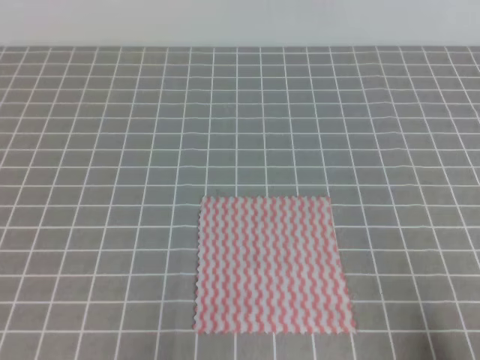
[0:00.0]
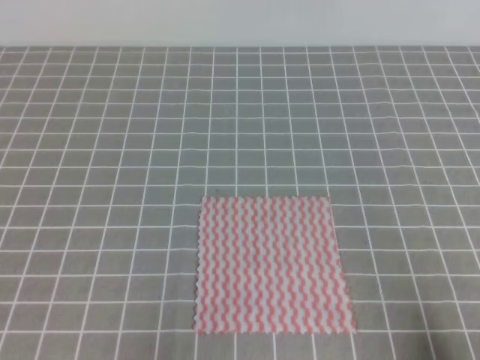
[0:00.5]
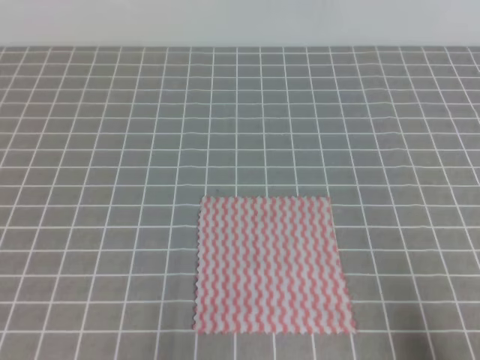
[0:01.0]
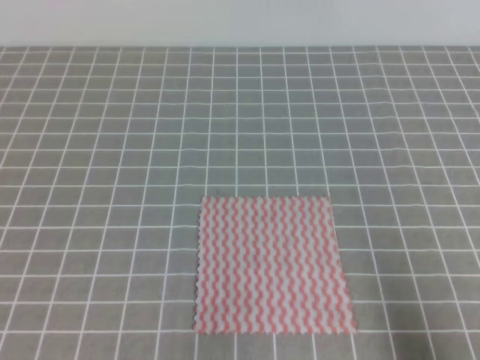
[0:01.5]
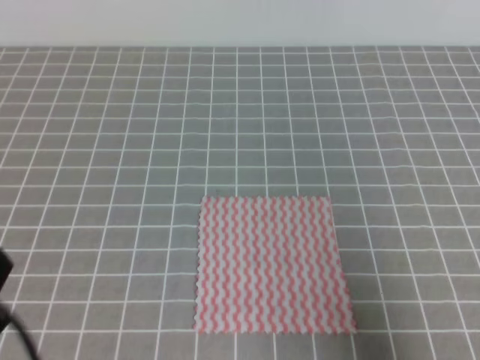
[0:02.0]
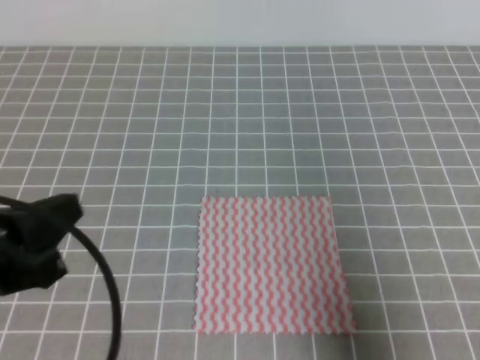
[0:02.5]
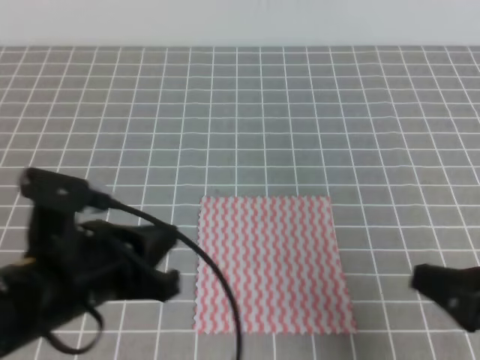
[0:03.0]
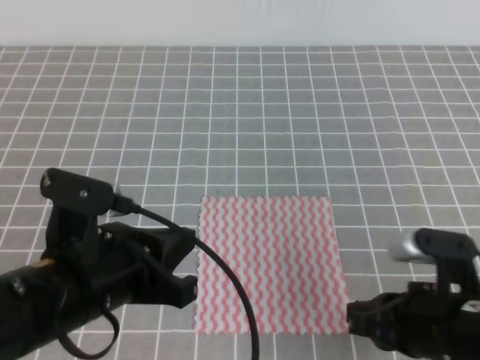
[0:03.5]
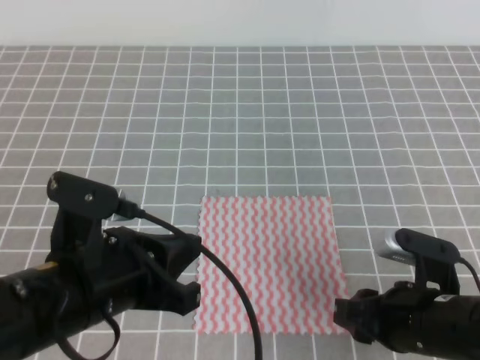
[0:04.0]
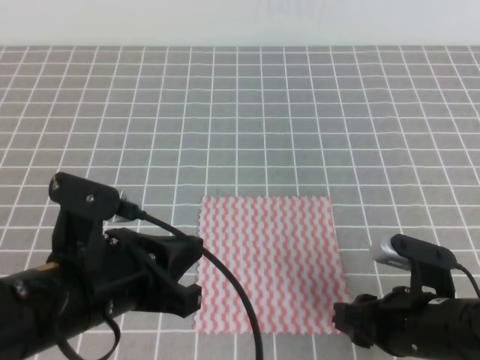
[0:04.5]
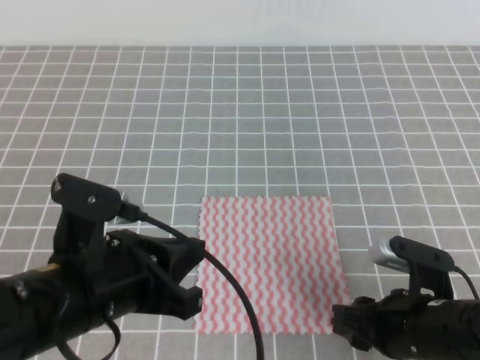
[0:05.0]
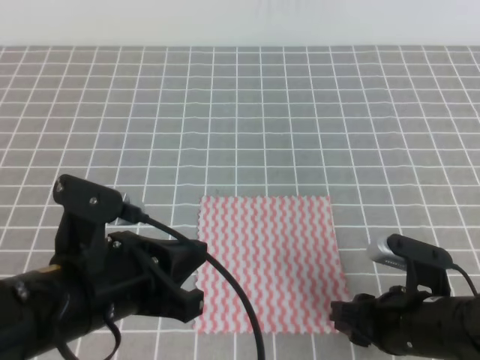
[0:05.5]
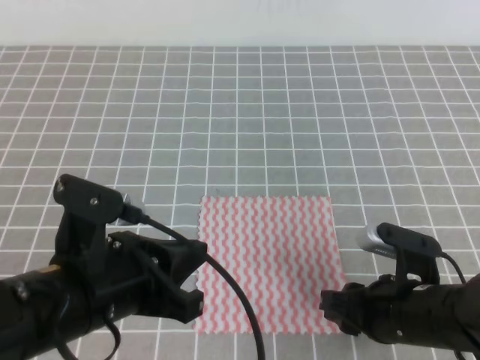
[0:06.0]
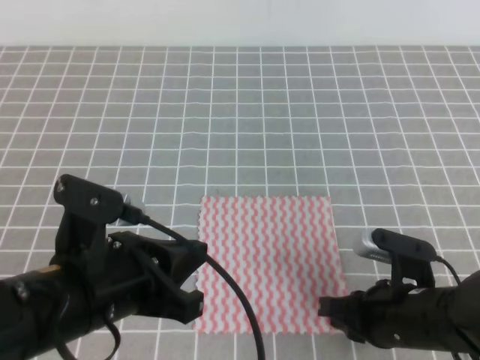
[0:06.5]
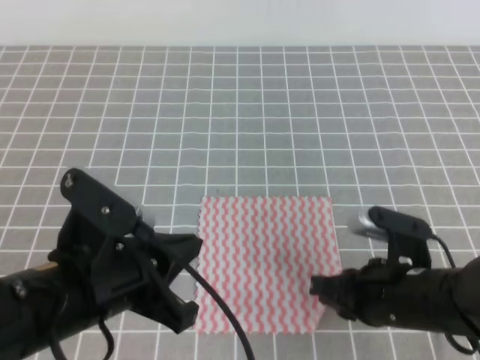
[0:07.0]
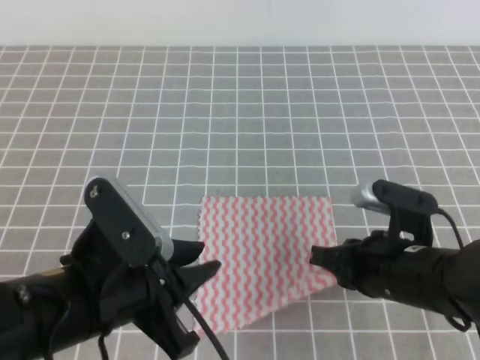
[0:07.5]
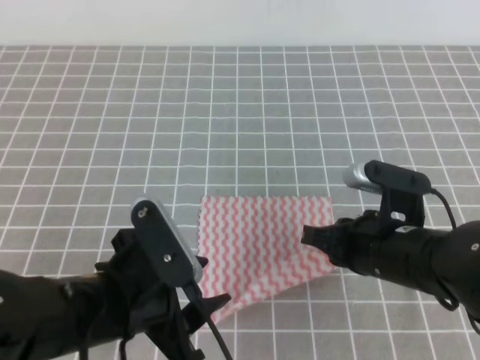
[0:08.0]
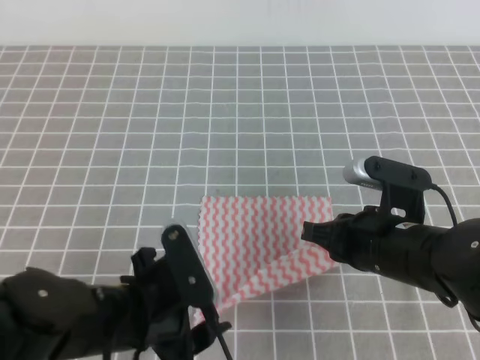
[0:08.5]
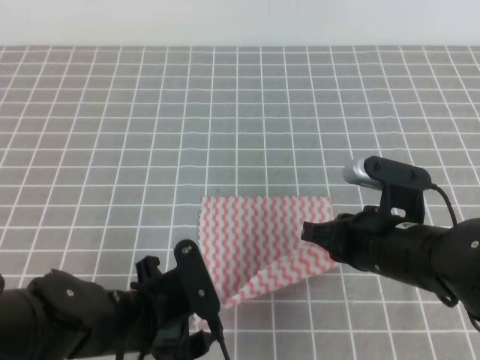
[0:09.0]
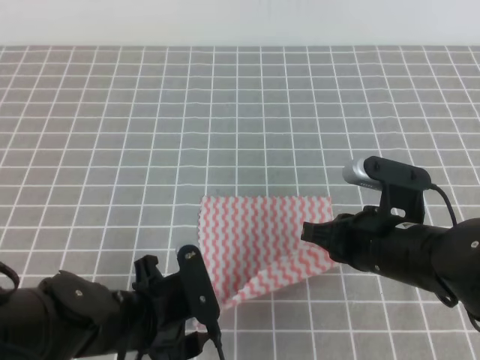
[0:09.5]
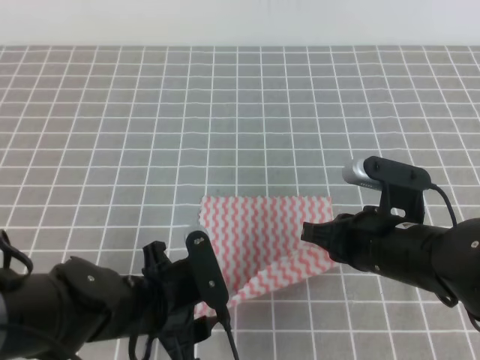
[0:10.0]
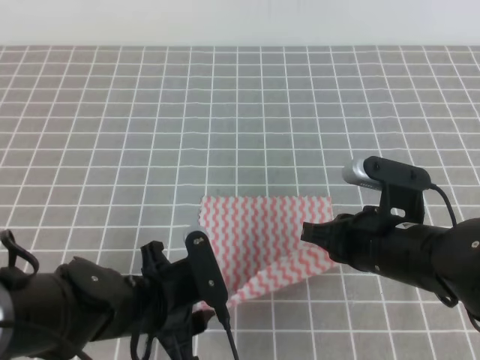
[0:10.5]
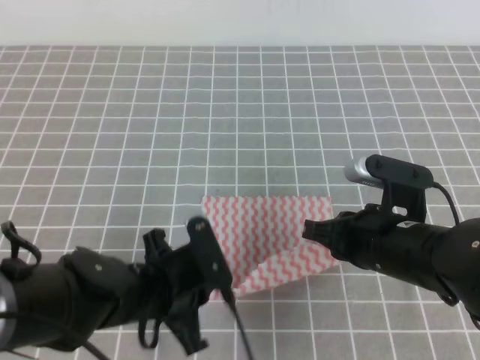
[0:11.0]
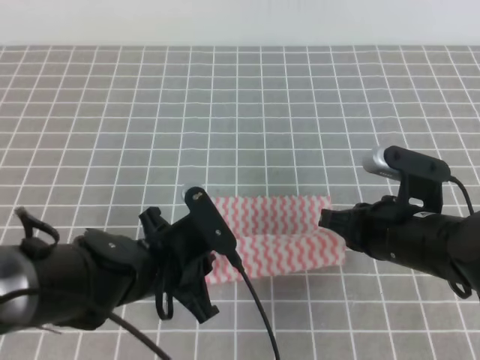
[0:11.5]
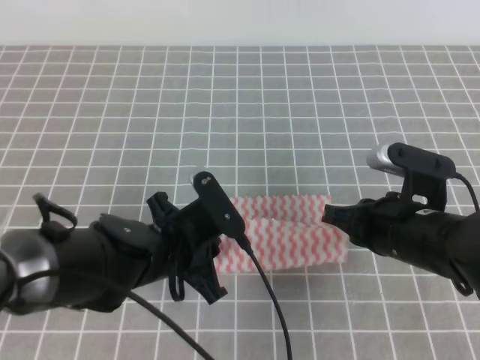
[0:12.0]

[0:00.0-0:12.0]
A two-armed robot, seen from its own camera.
0:00.0 to 0:02.0: The two grippers go about 5 cm upward.
0:02.0 to 0:04.0: The right gripper shifts about 20 cm to the left, forward and downward, and opens its fingers. Meanwhile the left gripper goes some 15 cm to the right and forward.
0:04.0 to 0:06.0: The grippers stay close to where they were, moving slightly.
0:06.0 to 0:08.0: The right gripper ends up some 5 cm from where it was, and closes up. Meanwhile the left gripper opens.
0:08.0 to 0:10.0: The left gripper heads downward, covering about 5 cm.
0:10.0 to 0:12.0: The left gripper moves forward, approximately 5 cm, and closes up.

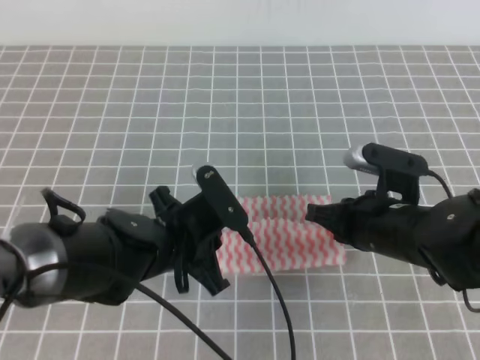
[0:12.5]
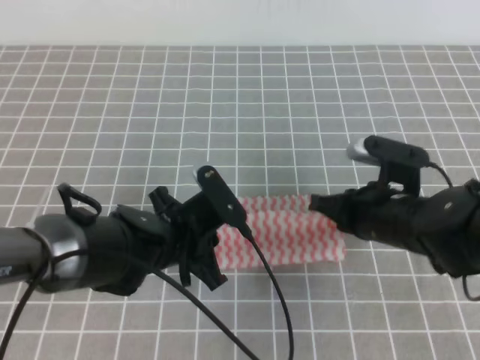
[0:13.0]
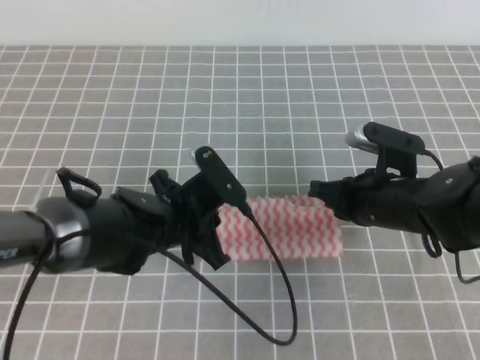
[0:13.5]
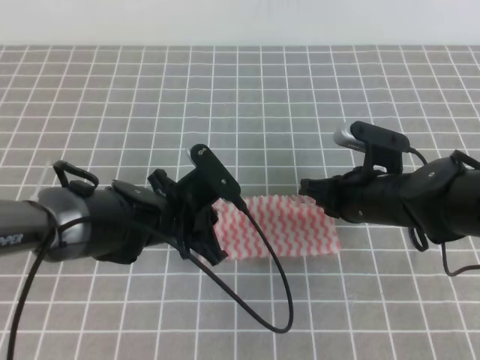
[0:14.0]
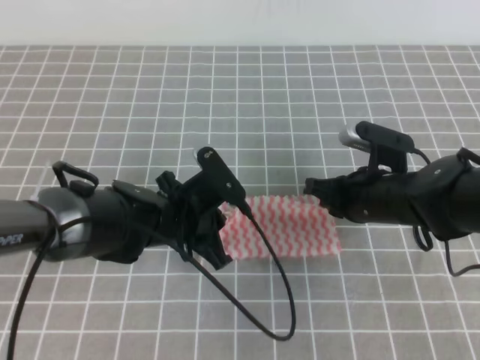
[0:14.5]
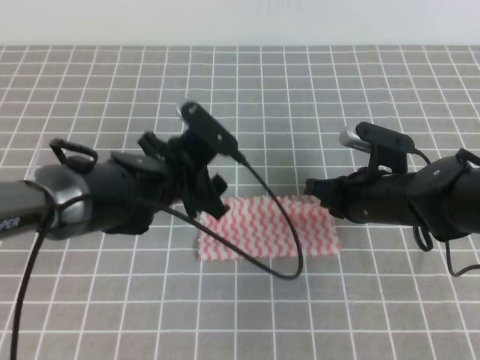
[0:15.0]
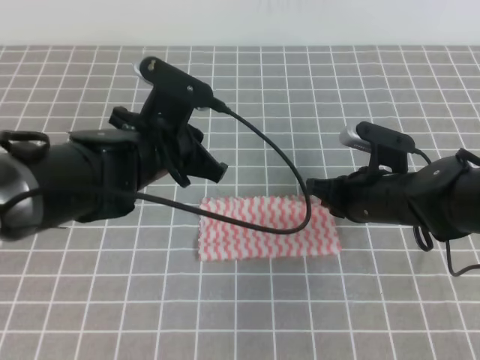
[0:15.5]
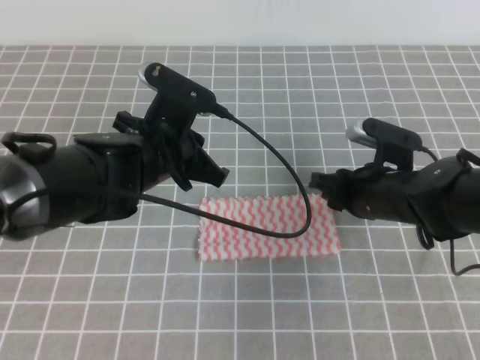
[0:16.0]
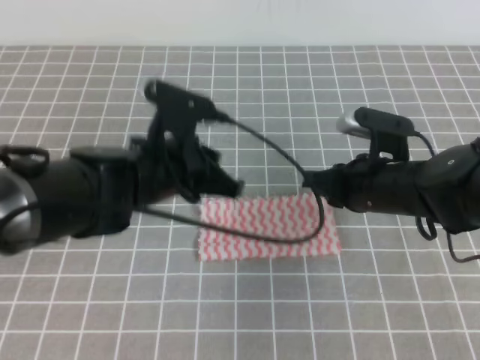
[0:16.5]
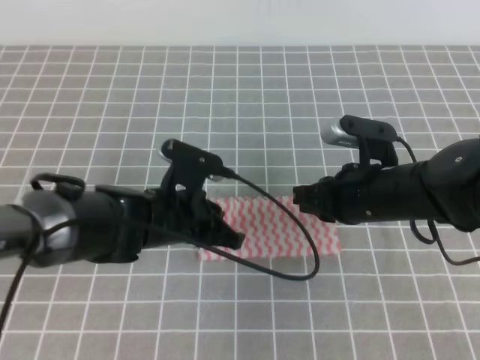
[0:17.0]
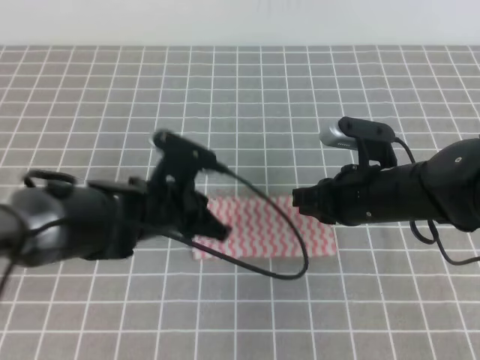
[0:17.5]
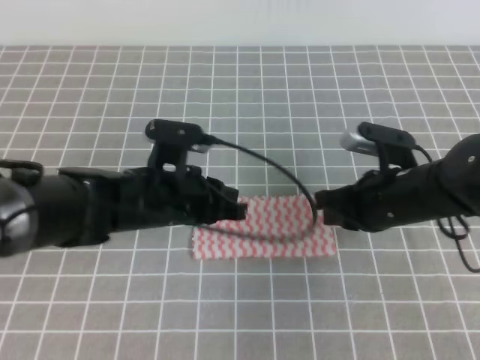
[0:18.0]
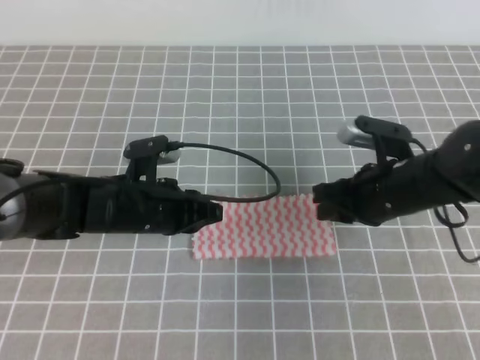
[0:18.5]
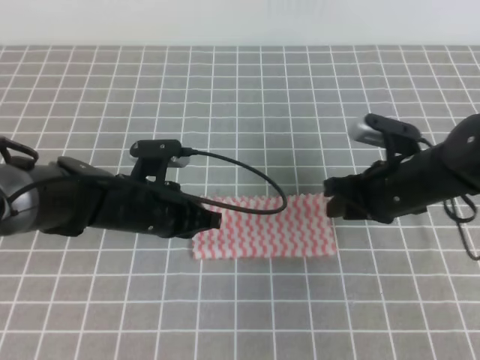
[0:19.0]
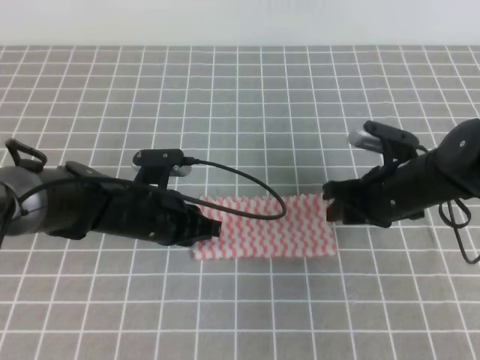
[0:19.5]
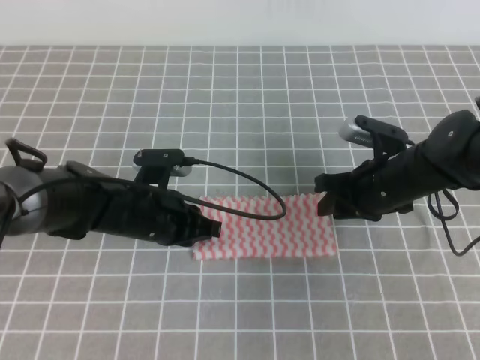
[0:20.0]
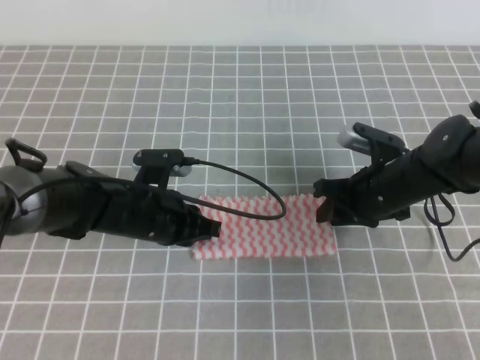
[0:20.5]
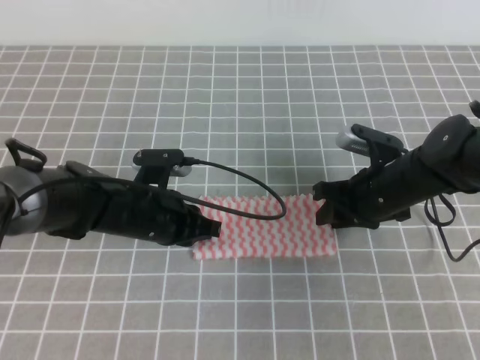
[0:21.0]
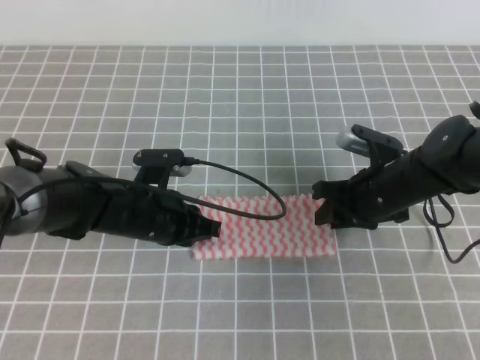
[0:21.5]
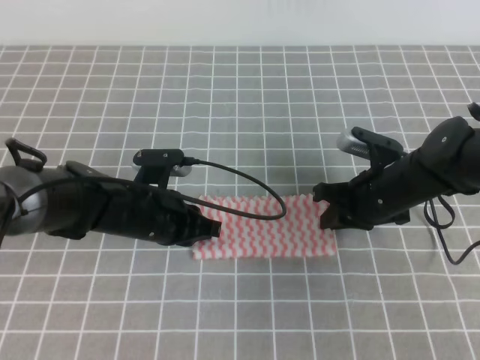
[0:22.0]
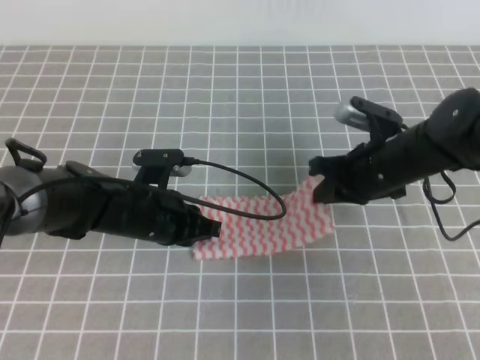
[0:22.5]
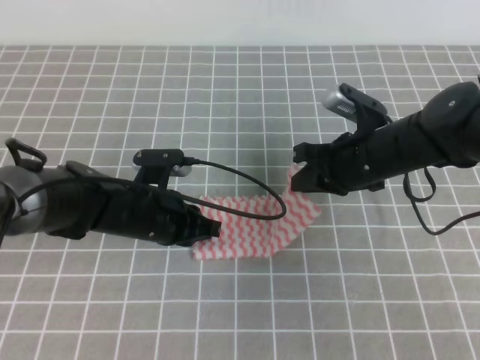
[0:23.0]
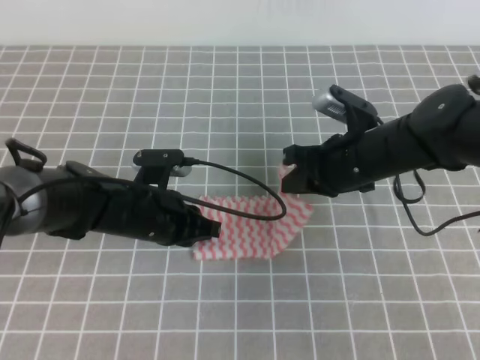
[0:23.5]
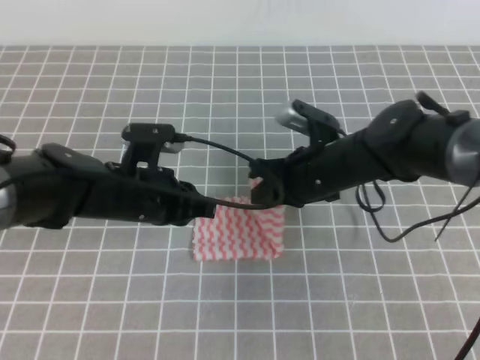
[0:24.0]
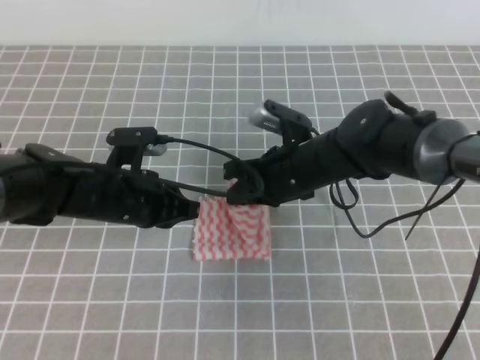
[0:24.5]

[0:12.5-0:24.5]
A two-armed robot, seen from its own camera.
0:12.5 to 0:14.5: The left gripper opens up. Meanwhile the right gripper travels forward by roughly 5 cm.
0:14.5 to 0:16.5: The left gripper is displaced upward by roughly 5 cm, and closes its fingers; the right gripper opens, then closes again.
0:16.5 to 0:18.5: The left gripper goes about 5 cm downward.
0:18.5 to 0:20.5: The right gripper shifts by roughly 5 cm, and opens its fingers.
0:20.5 to 0:22.5: The right gripper closes up.
0:22.5 to 0:24.5: The right gripper goes some 10 cm to the left.

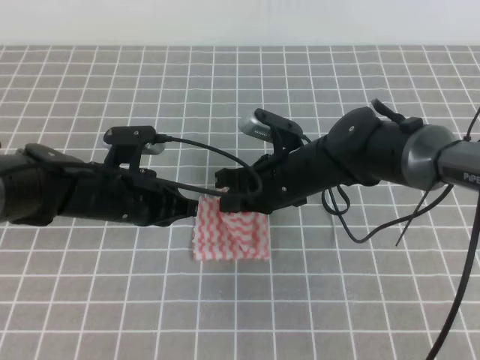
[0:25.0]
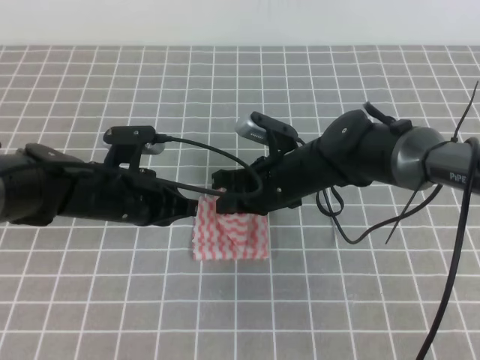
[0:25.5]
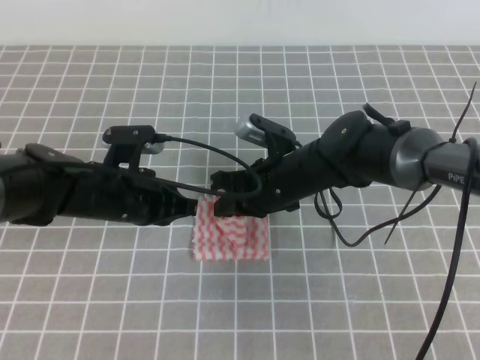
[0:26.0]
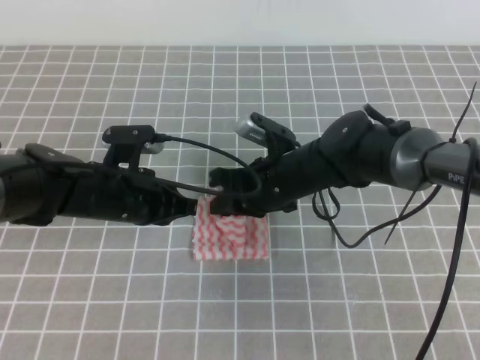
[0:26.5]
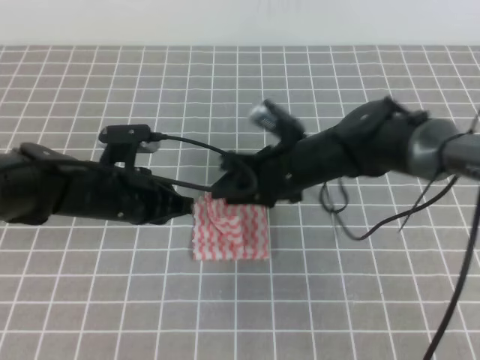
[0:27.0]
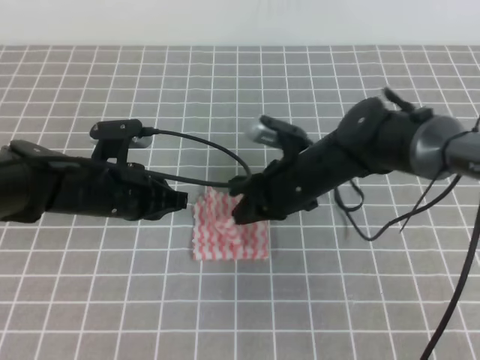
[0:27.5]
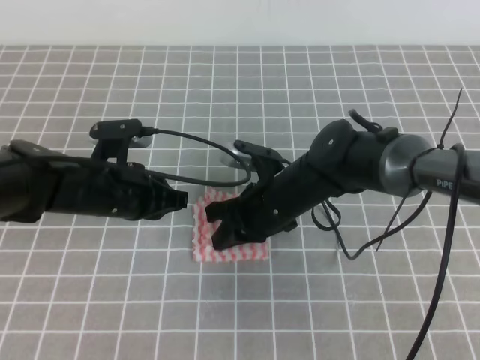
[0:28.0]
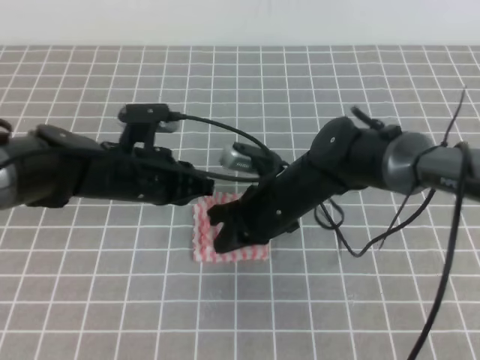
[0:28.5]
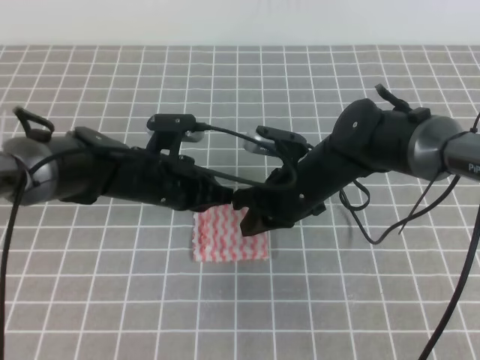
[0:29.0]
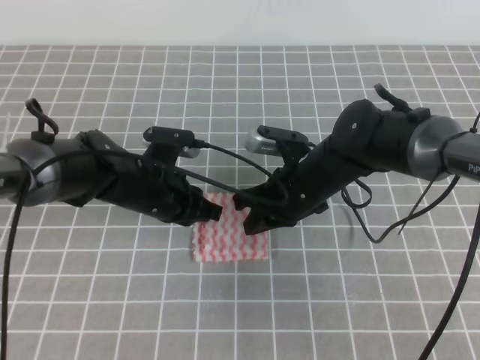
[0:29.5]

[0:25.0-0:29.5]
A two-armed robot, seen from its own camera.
0:25.0 to 0:27.0: The right gripper opens up.
0:27.0 to 0:29.5: The right gripper closes.
